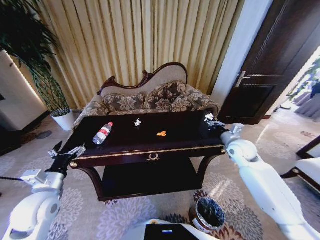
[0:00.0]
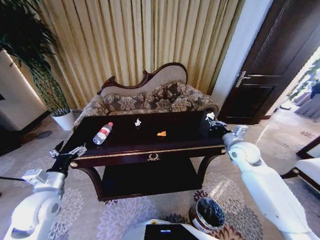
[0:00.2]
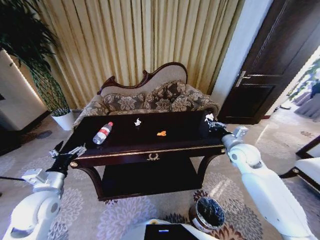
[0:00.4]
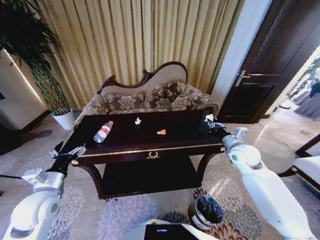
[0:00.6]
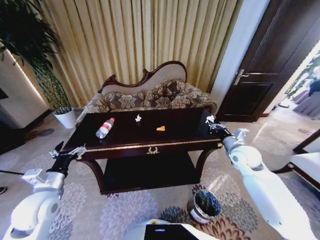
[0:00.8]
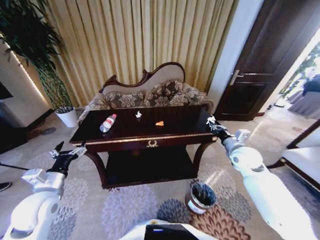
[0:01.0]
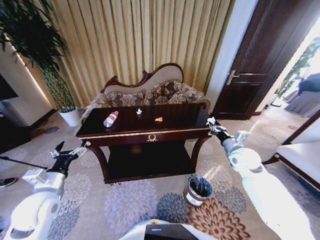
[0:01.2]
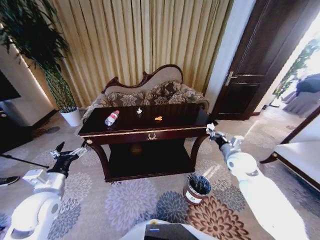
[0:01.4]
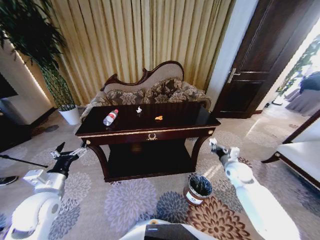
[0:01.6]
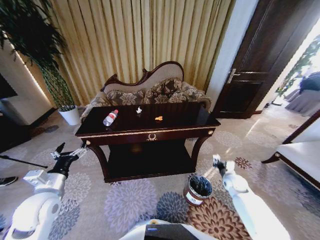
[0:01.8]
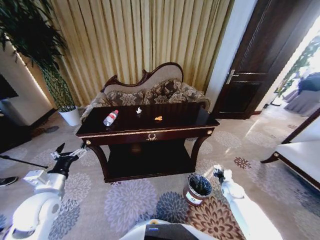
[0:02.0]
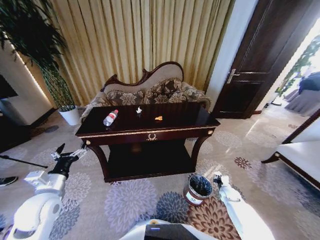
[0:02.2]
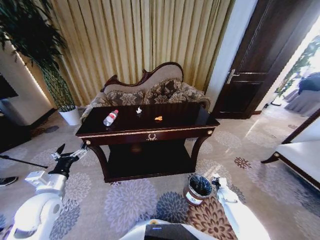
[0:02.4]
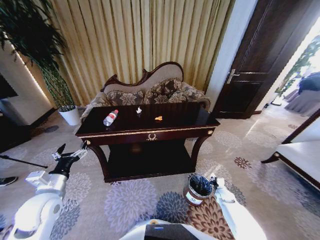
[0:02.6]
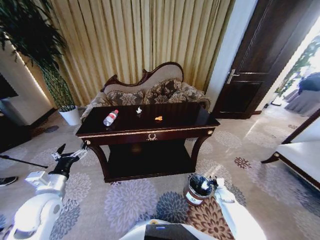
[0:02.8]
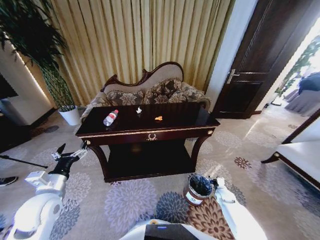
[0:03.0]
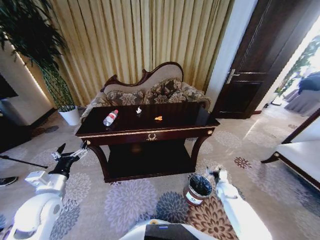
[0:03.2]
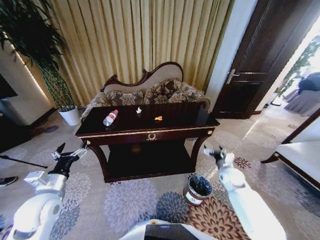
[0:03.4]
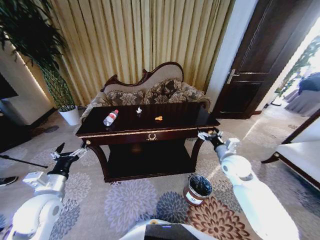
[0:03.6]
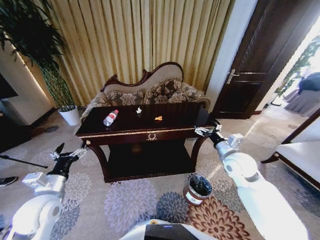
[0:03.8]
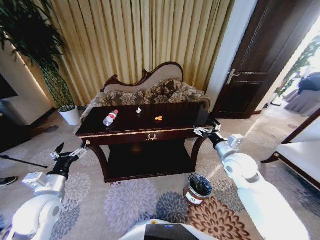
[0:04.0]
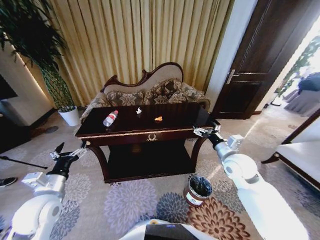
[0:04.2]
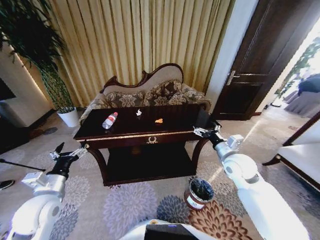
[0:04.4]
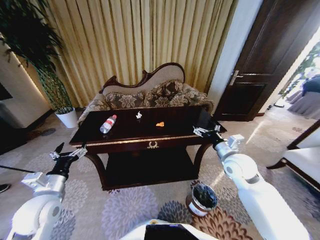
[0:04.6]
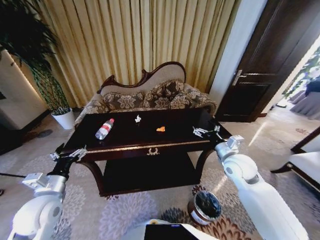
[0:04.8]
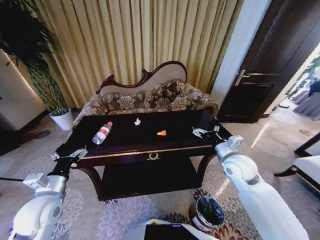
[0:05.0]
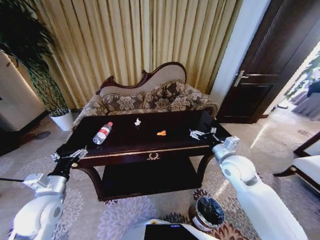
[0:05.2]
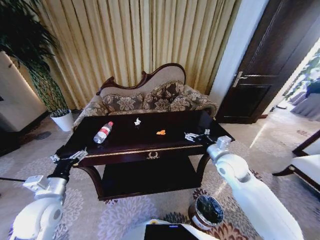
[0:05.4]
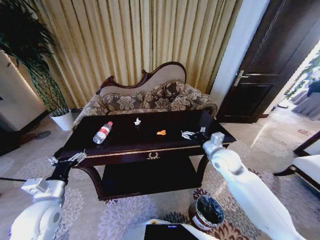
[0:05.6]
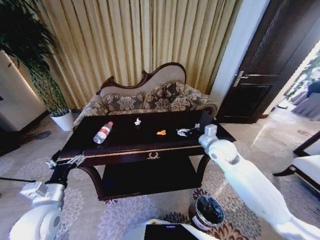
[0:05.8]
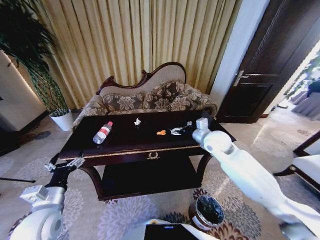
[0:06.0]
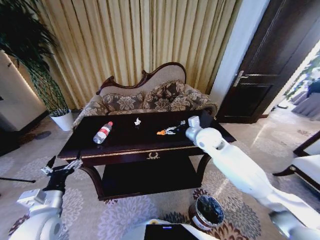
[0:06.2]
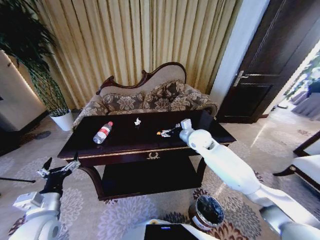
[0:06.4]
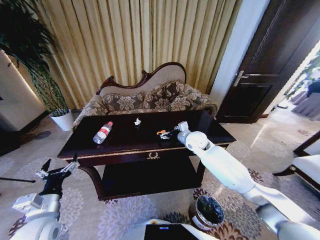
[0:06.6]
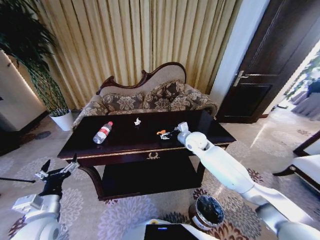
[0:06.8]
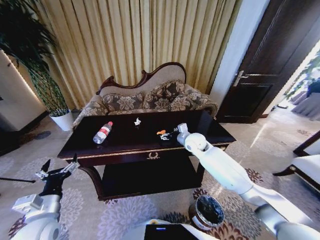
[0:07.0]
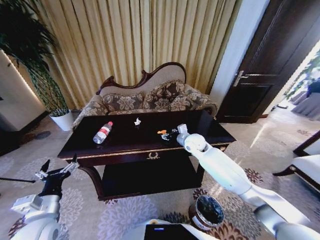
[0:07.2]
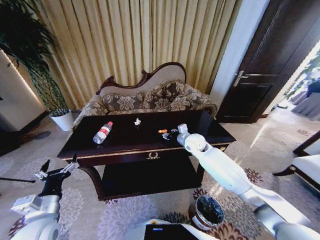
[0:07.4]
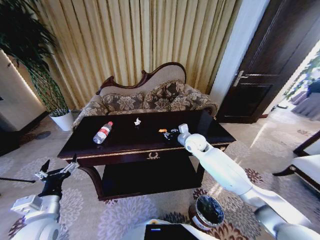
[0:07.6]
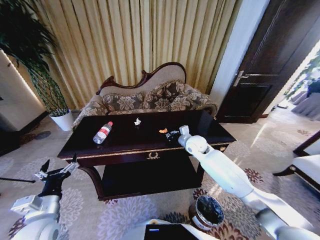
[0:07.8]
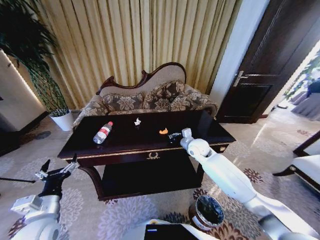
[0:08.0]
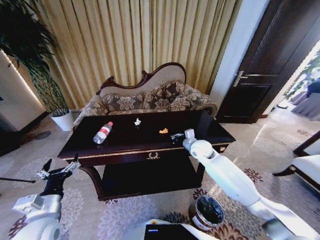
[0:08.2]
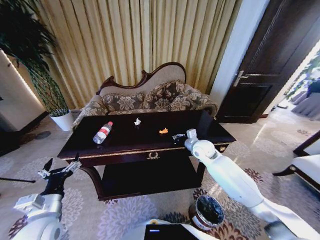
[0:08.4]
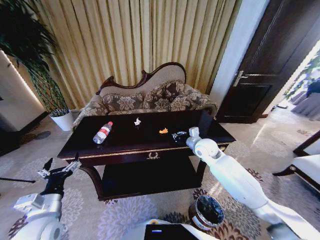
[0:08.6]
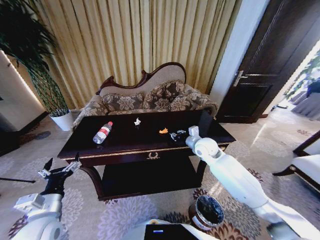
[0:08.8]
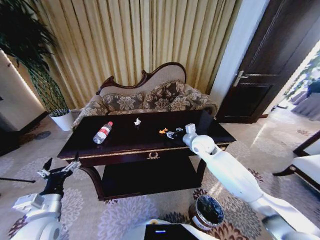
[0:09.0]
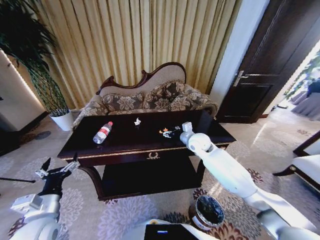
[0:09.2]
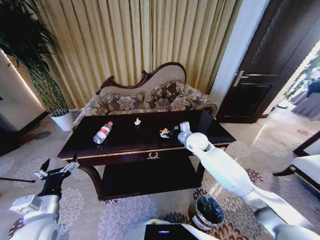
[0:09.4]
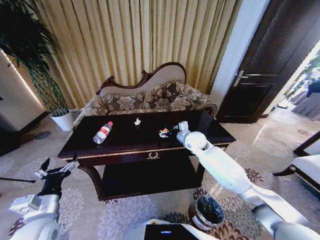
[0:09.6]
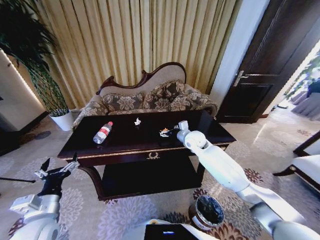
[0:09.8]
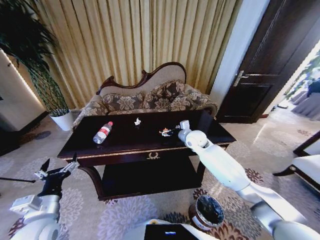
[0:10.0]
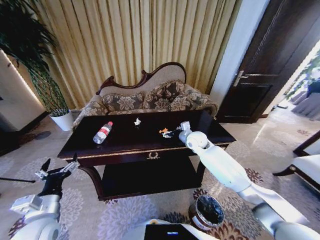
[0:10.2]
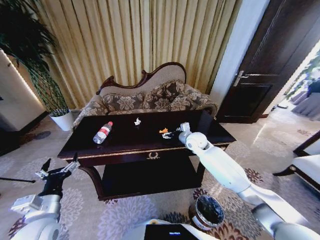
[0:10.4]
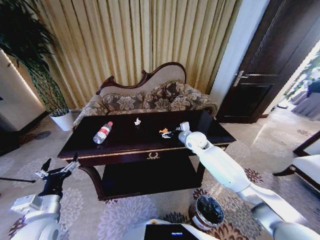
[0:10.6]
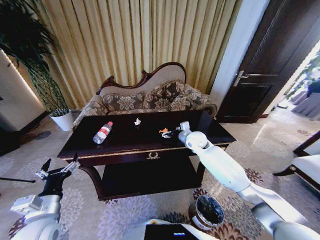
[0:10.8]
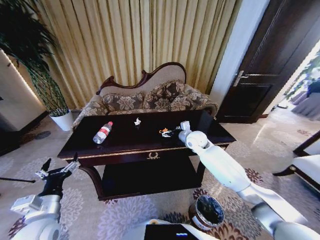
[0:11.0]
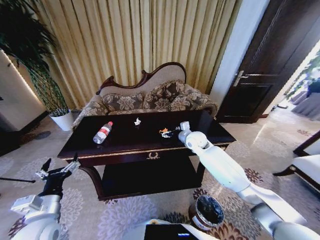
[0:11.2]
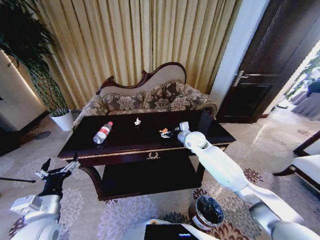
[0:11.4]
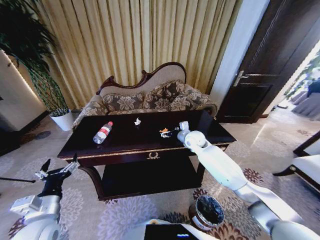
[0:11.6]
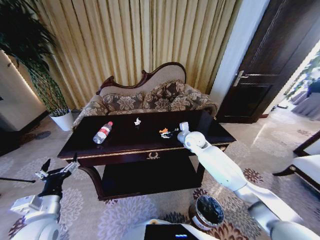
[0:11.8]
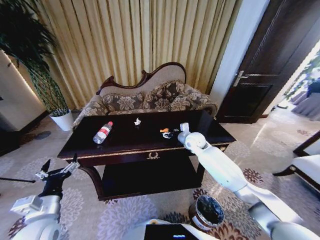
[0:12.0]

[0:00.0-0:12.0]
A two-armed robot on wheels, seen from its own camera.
Task of the whole recording: Move to the front of the table and place the trash on the table into the trash bin.
0:00.0 to 0:01.6: The right gripper goes some 10 cm downward.
0:01.6 to 0:03.0: The right gripper is displaced downward by approximately 20 cm, and opens.
0:03.0 to 0:04.4: The right gripper moves upward, roughly 35 cm, and opens.
0:04.4 to 0:06.0: The right gripper goes roughly 10 cm forward and to the left.
0:06.0 to 0:07.6: The right gripper goes approximately 10 cm downward, forward and to the left, and closes.
0:07.6 to 0:09.0: The right gripper closes, then opens again.
0:09.0 to 0:10.4: The right gripper opens its fingers.
0:10.4 to 0:12.0: Both grippers stay about where they are.

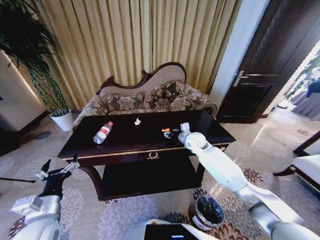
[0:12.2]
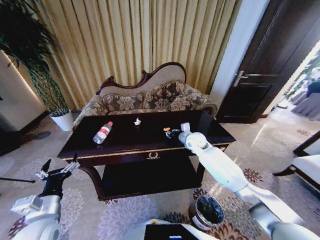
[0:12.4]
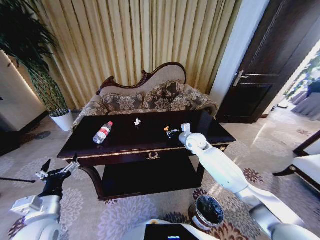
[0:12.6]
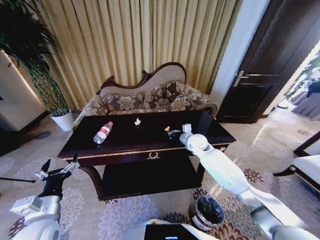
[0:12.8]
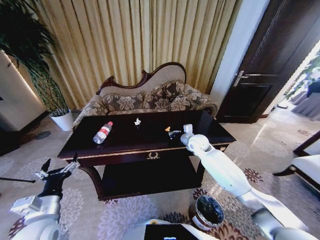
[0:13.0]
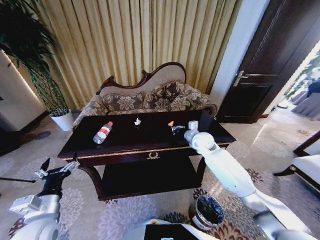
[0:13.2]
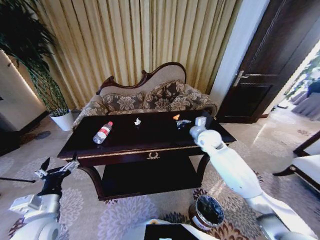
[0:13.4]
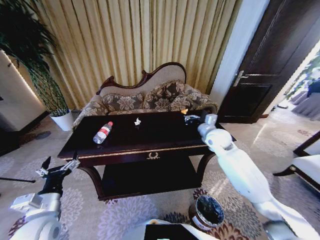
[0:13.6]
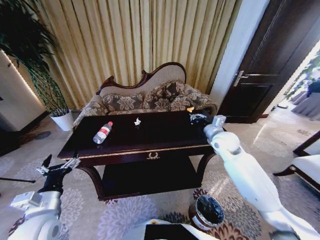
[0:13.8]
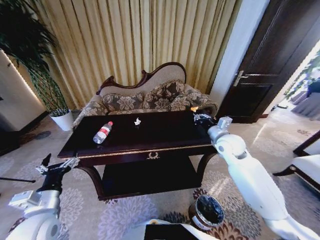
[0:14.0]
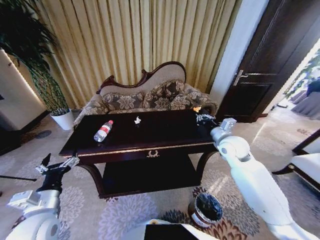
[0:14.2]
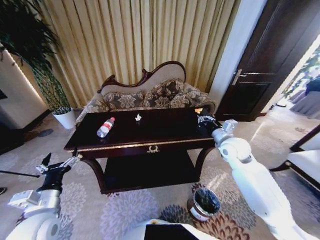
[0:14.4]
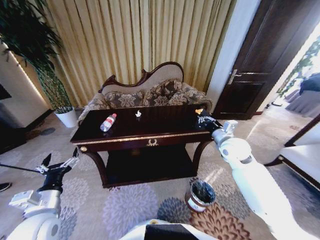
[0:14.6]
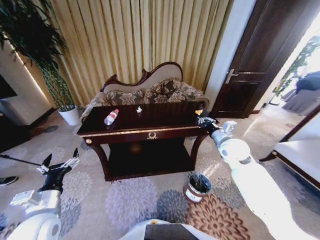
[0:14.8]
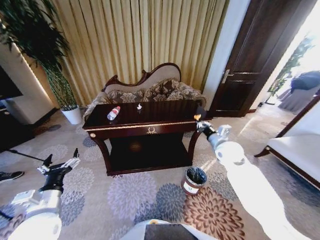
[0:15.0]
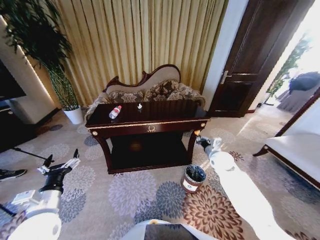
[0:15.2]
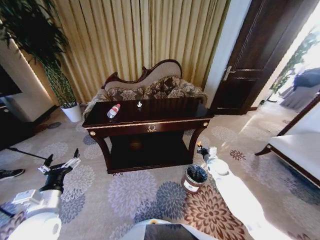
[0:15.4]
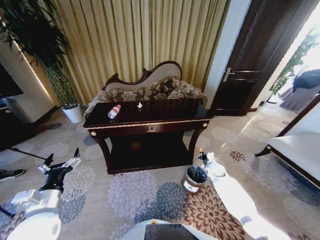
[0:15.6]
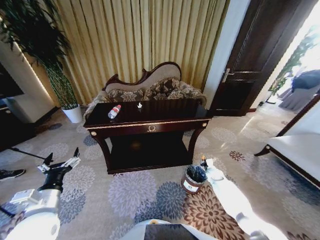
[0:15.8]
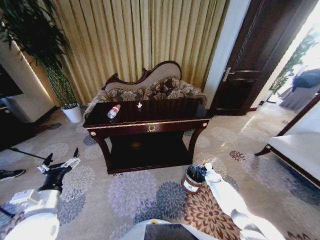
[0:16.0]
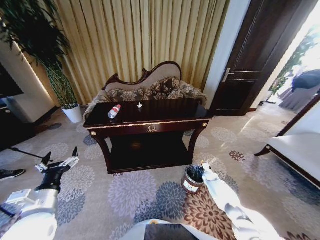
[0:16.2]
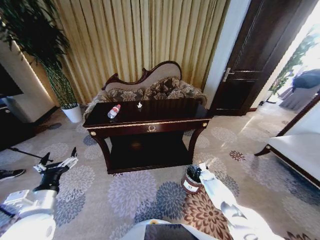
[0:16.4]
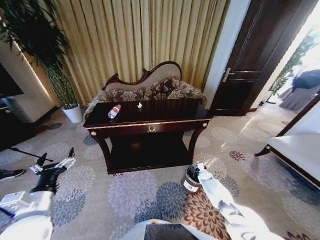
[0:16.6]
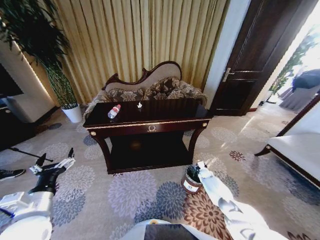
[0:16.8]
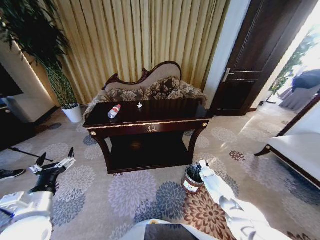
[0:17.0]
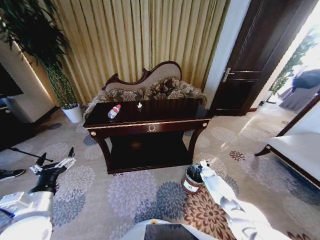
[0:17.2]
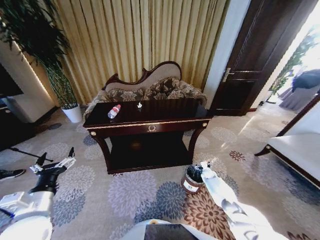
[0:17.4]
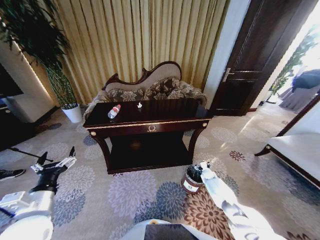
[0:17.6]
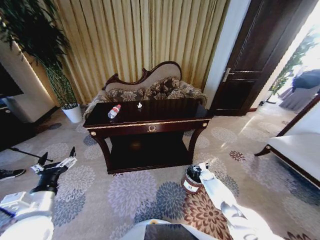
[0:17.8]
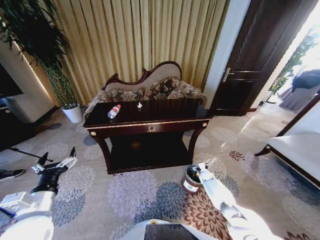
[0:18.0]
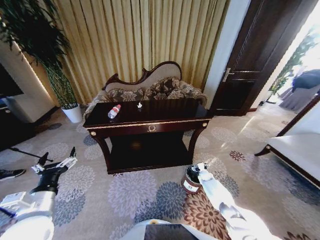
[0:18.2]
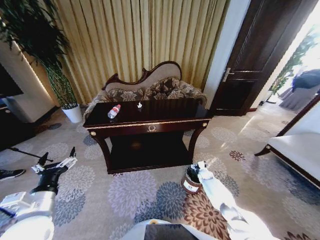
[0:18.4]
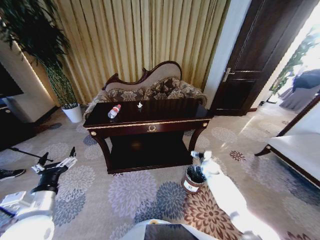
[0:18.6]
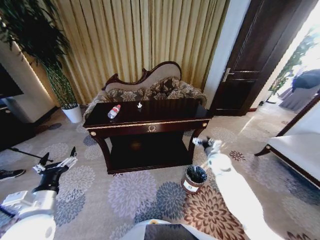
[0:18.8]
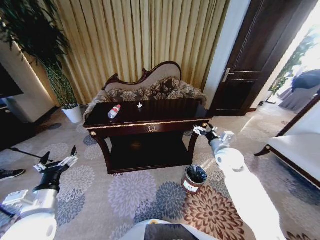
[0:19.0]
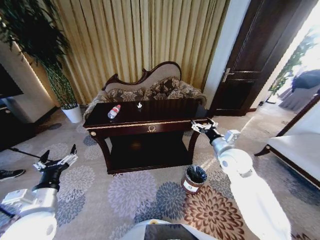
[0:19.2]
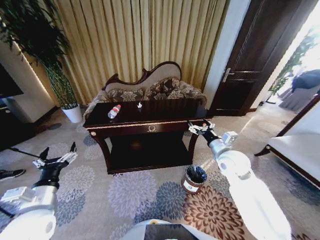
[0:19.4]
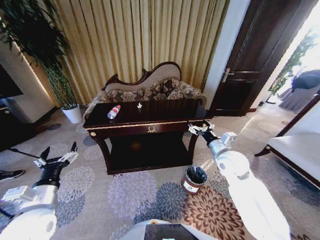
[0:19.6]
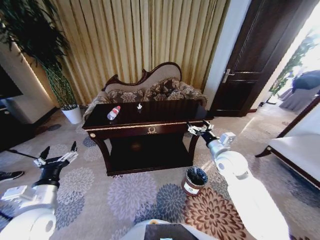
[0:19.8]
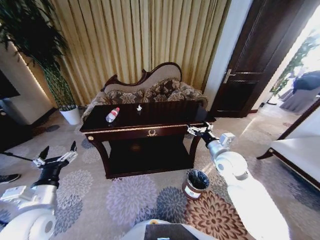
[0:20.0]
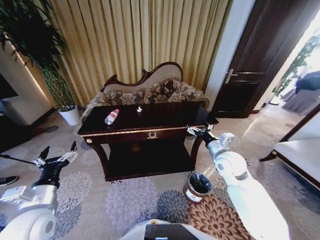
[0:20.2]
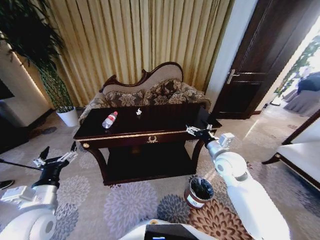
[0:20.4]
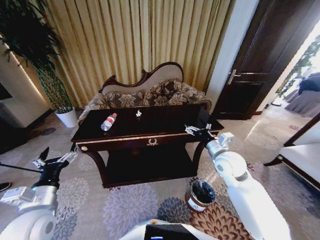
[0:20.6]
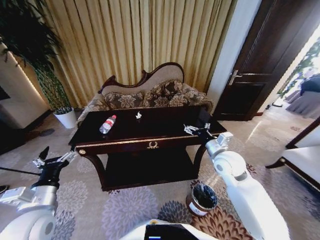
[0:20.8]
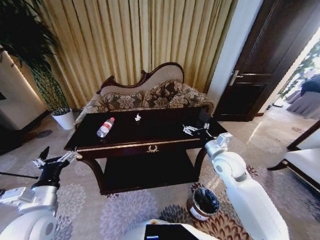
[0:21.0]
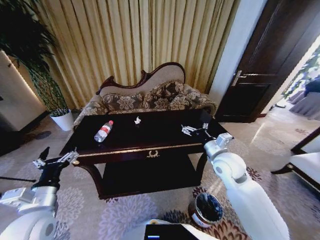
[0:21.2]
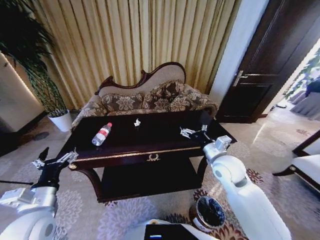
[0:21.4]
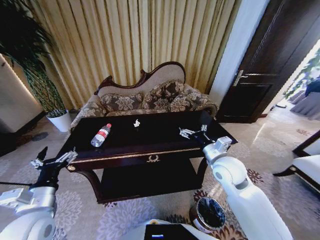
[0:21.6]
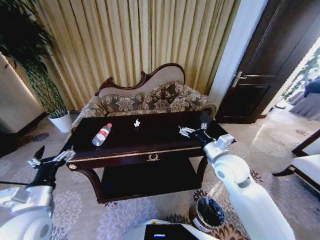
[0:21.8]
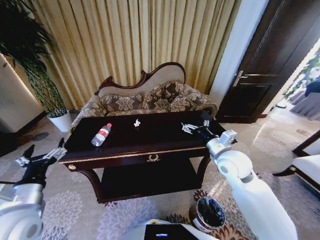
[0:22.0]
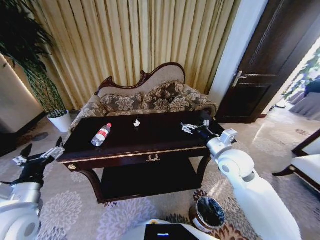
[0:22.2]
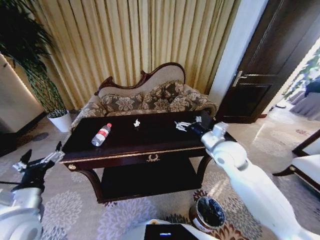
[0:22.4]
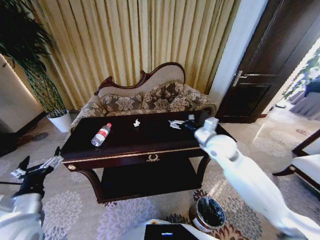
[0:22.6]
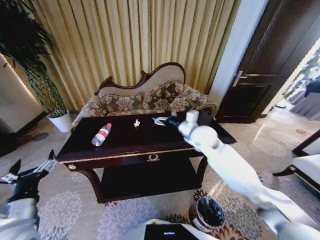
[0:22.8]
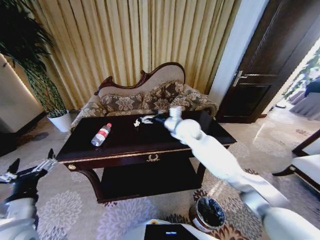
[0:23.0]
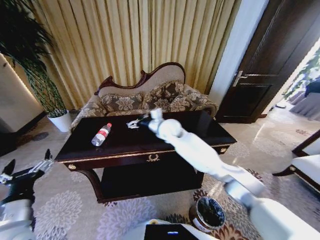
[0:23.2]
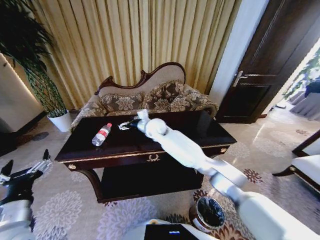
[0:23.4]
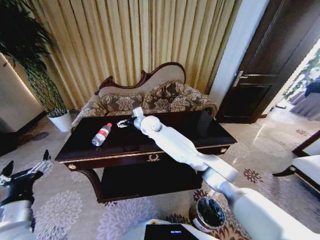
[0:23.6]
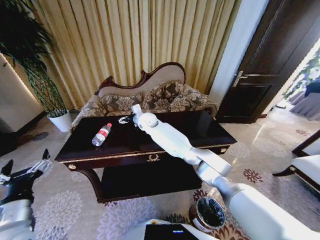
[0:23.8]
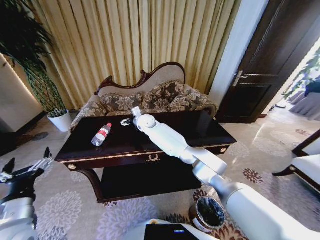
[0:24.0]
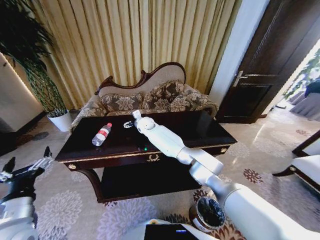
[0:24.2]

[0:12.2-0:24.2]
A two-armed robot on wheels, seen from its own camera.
Task of the whole recording: Move to the front of the table and place the trash on the table into the trash bin.
0:12.2 to 0:13.8: The right gripper goes roughly 15 cm to the right, backward and upward, and closes its fingers.
0:13.8 to 0:15.2: The right gripper travels downward by roughly 10 cm.
0:15.2 to 0:16.6: The right gripper shifts some 30 cm downward.
0:16.6 to 0:18.2: The right gripper opens its fingers.
0:18.2 to 0:19.8: The right gripper is displaced upward by roughly 35 cm.
0:21.2 to 0:22.6: The right gripper moves forward, some 5 cm.
0:22.6 to 0:24.2: The right gripper heads to the left and forward, covering roughly 35 cm.
